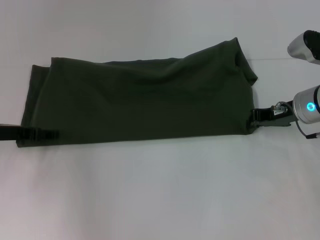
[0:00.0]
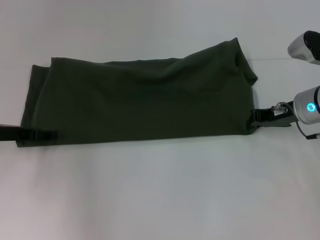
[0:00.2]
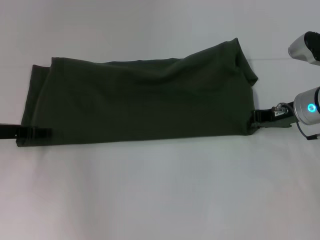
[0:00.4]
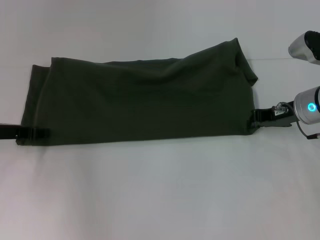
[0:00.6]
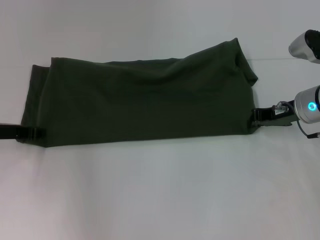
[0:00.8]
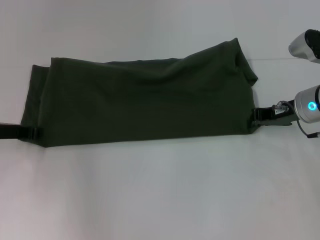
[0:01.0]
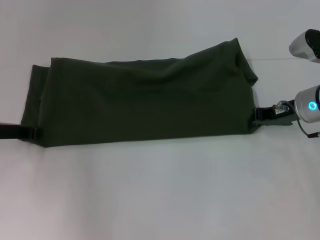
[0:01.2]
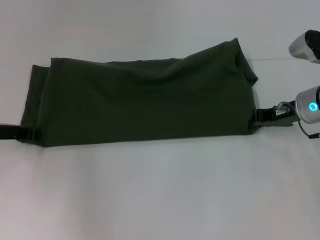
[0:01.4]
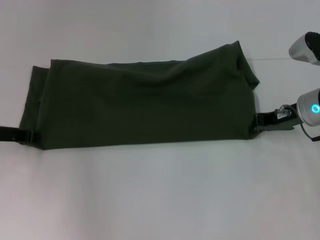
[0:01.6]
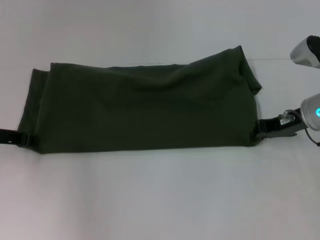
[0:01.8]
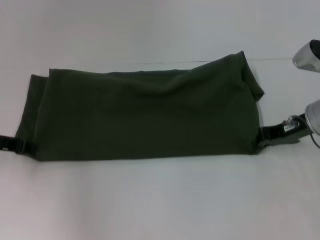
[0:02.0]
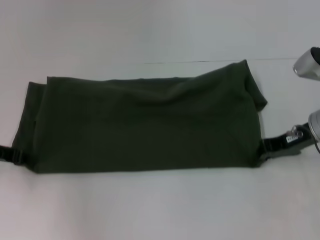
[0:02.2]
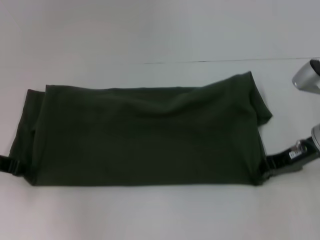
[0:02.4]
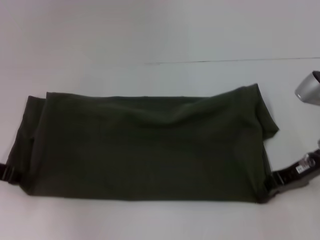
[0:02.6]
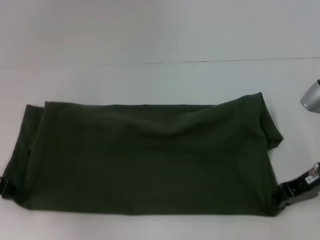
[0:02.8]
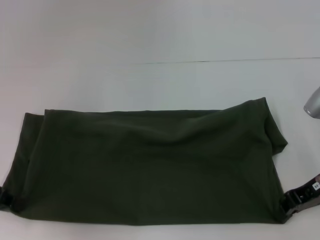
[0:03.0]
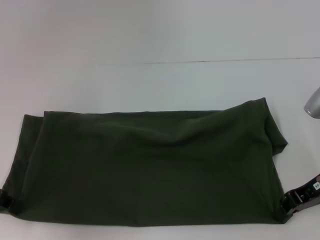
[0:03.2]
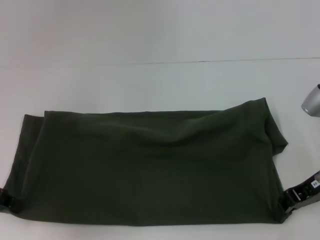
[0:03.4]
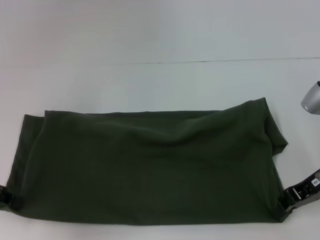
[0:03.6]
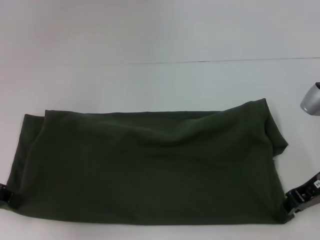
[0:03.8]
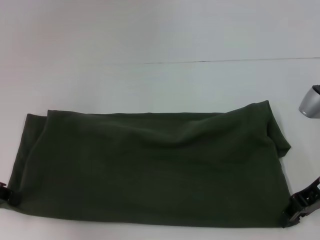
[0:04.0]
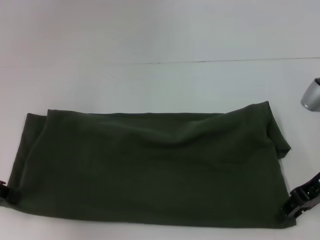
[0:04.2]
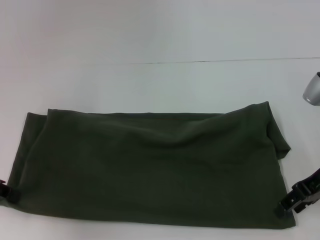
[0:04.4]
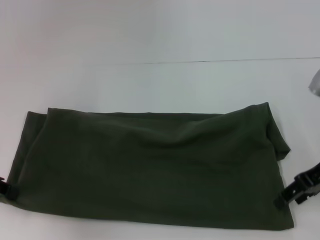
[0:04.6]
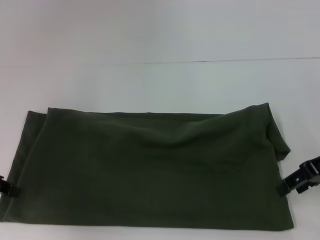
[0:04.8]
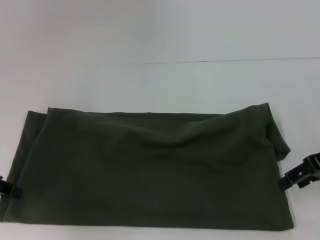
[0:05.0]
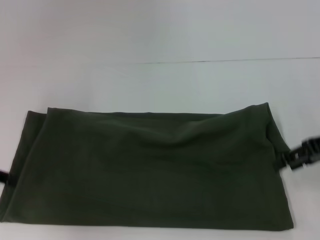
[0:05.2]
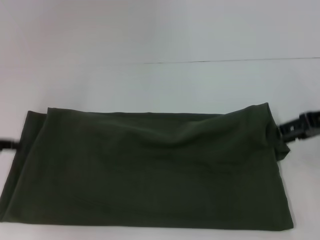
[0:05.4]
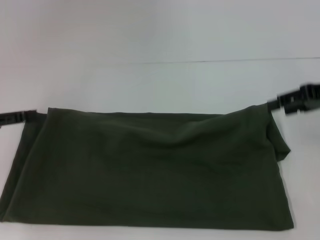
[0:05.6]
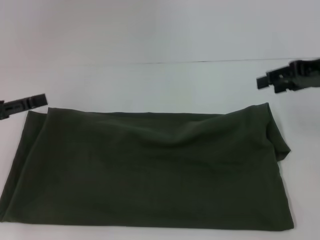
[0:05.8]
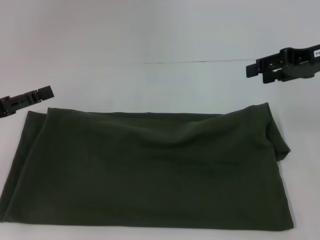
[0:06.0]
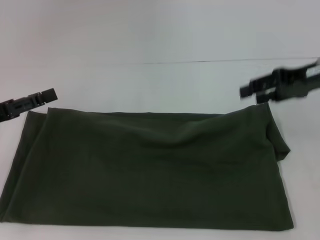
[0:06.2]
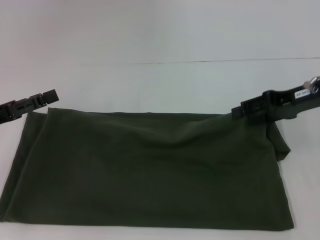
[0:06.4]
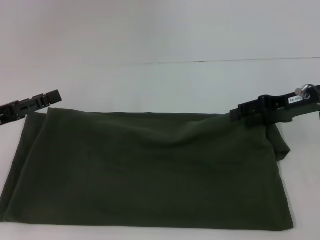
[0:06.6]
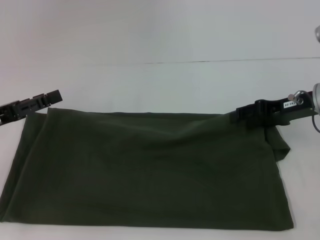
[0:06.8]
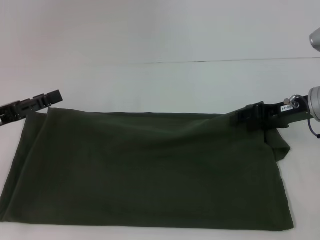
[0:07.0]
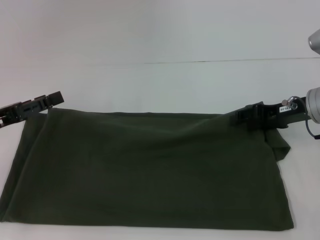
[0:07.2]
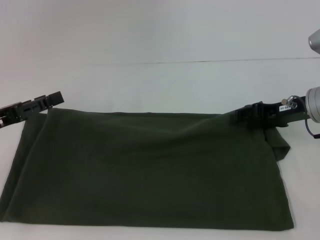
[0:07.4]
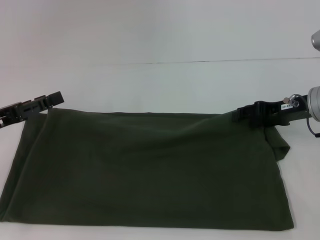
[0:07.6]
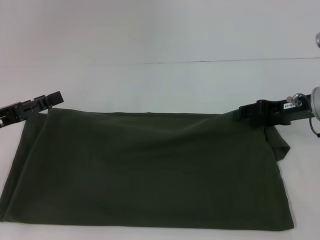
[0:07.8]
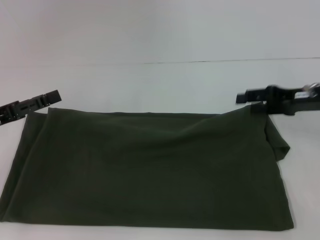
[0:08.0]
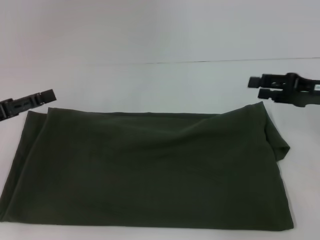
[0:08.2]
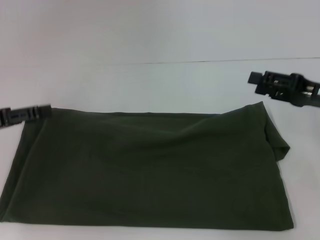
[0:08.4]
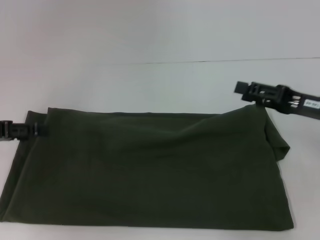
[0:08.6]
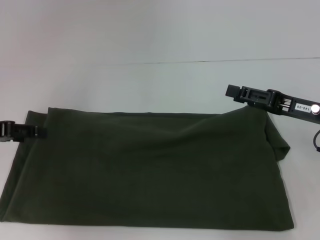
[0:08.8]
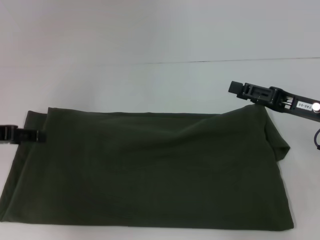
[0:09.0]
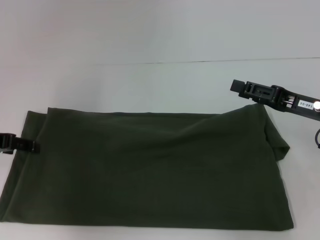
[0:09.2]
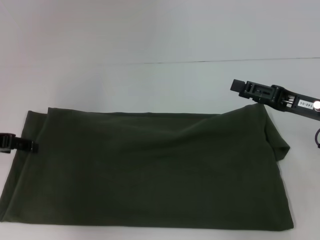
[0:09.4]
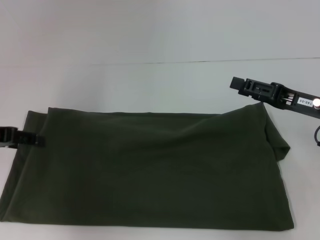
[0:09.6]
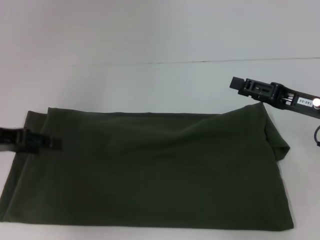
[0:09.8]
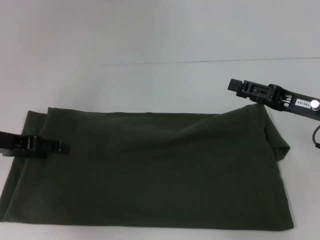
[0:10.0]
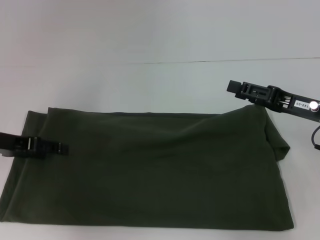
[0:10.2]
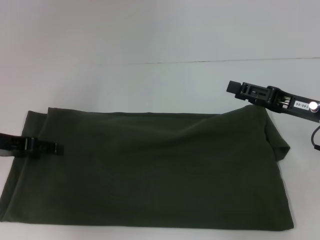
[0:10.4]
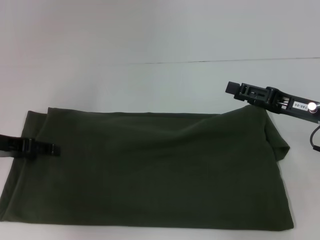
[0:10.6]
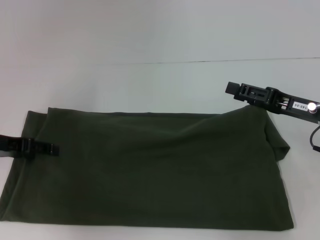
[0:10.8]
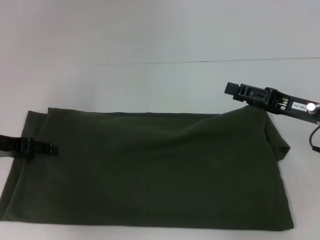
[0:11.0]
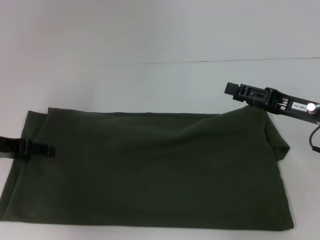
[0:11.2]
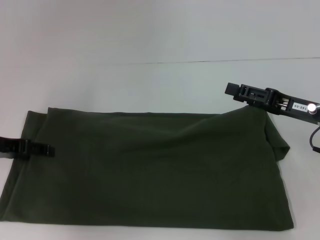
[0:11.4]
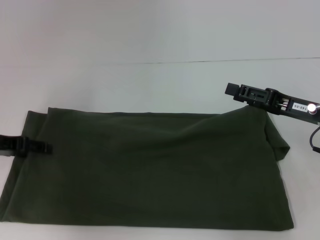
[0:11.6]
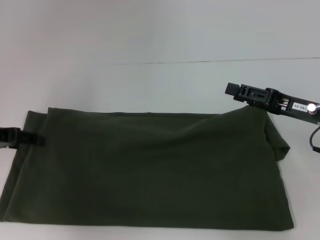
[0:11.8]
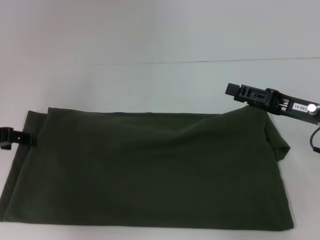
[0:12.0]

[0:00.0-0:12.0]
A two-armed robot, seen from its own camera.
Step, 0:00.0 to 0:04.6: Pull the clothes with your left hand.
Step, 0:00.0 to 0:04.6: Pull the clothes with your right hand.
0:00.0 to 0:01.6: The left gripper closes its fingers.
0:01.6 to 0:03.0: The grippers both shift backward by about 5 cm.
0:03.0 to 0:04.4: The right gripper opens.
0:04.4 to 0:06.0: The right gripper travels upward and forward by approximately 10 cm. Meanwhile the left gripper opens up.
0:06.0 to 0:07.6: The right gripper travels downward by about 10 cm.
0:07.6 to 0:09.0: The right gripper shifts some 5 cm backward.
0:09.0 to 0:12.0: There are only small adjustments of the grippers.

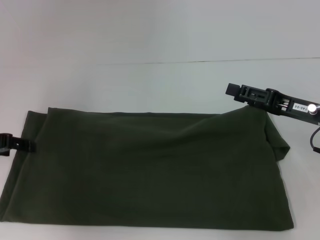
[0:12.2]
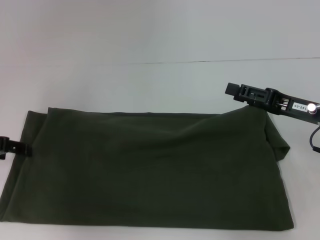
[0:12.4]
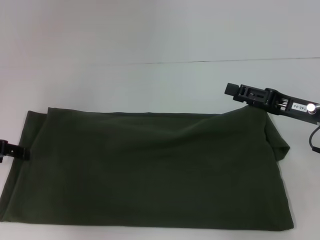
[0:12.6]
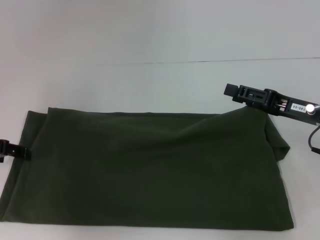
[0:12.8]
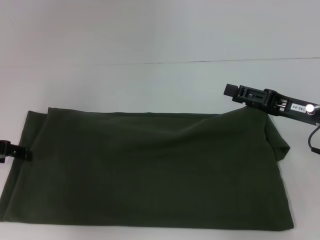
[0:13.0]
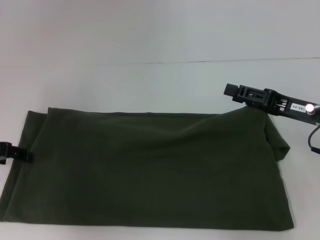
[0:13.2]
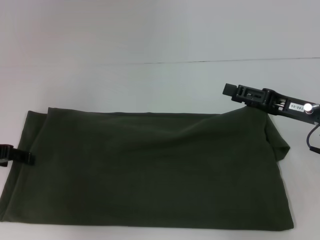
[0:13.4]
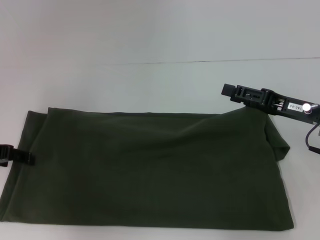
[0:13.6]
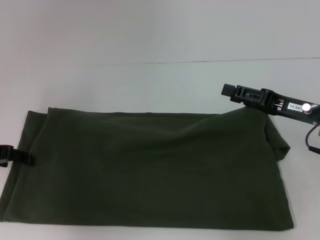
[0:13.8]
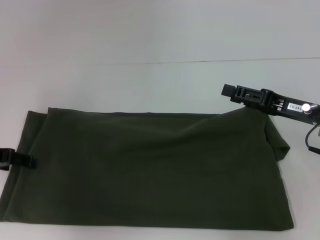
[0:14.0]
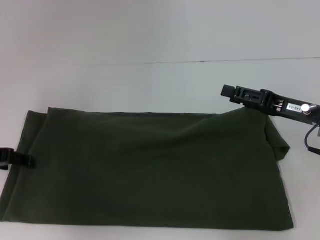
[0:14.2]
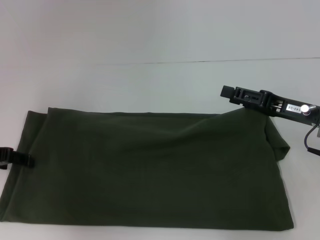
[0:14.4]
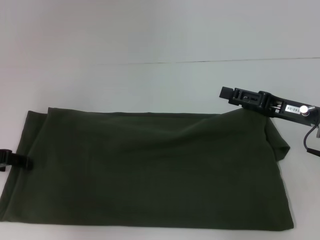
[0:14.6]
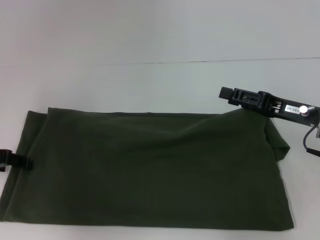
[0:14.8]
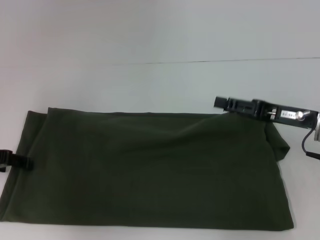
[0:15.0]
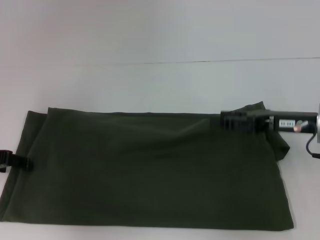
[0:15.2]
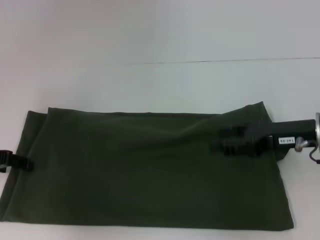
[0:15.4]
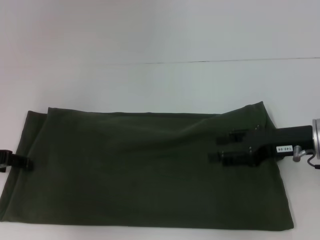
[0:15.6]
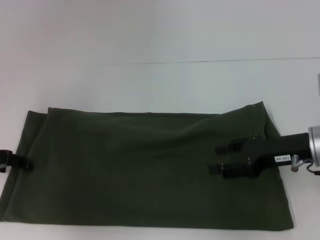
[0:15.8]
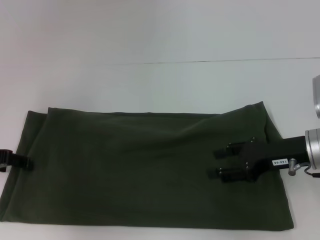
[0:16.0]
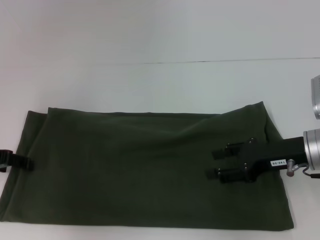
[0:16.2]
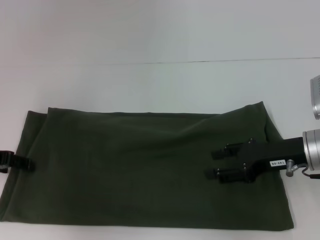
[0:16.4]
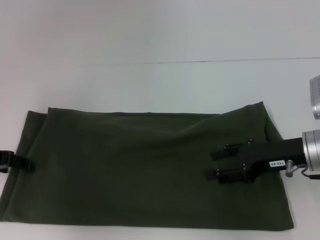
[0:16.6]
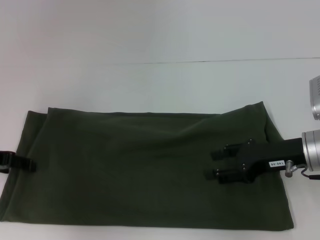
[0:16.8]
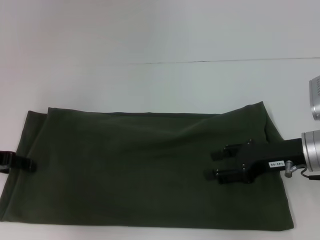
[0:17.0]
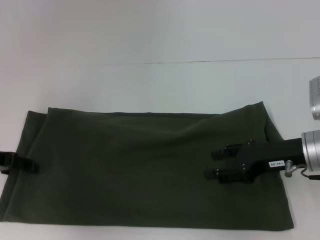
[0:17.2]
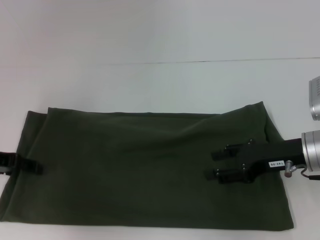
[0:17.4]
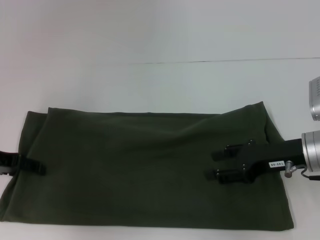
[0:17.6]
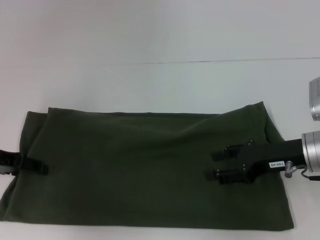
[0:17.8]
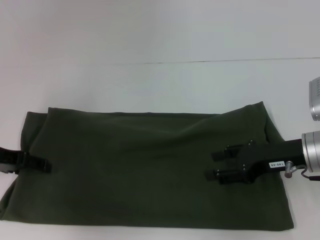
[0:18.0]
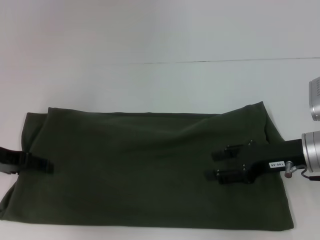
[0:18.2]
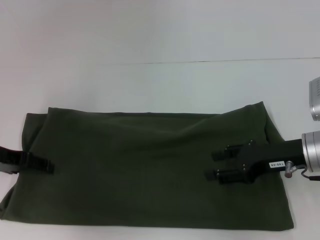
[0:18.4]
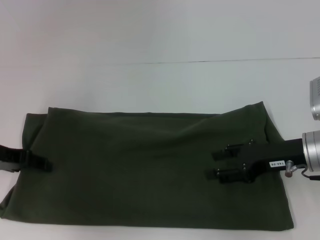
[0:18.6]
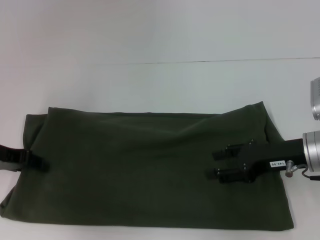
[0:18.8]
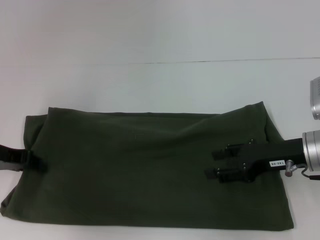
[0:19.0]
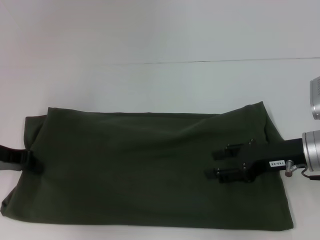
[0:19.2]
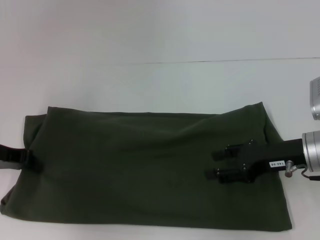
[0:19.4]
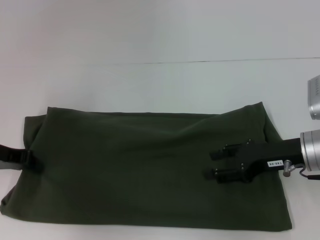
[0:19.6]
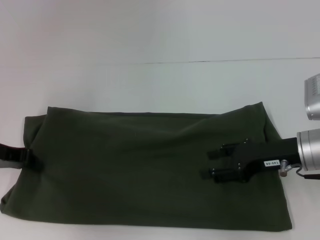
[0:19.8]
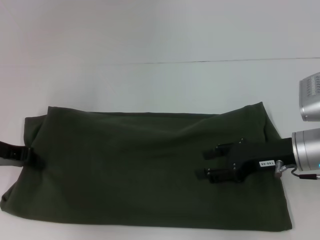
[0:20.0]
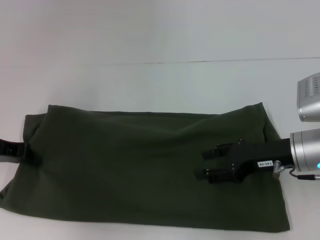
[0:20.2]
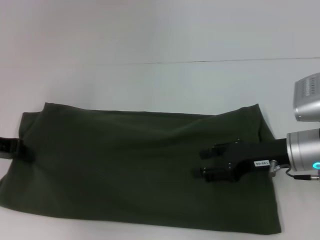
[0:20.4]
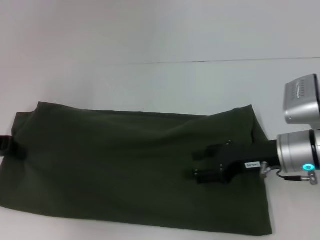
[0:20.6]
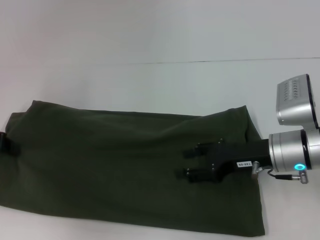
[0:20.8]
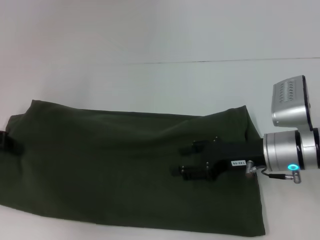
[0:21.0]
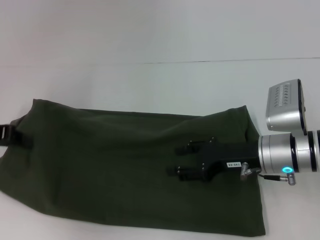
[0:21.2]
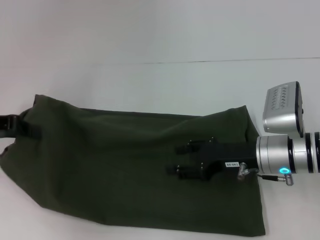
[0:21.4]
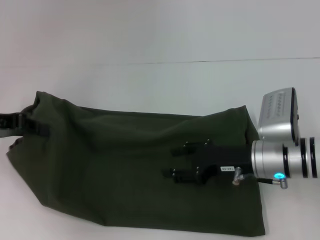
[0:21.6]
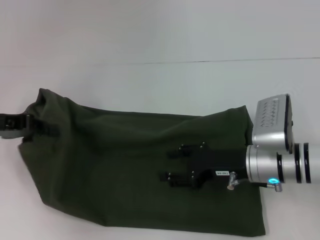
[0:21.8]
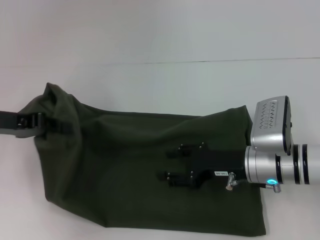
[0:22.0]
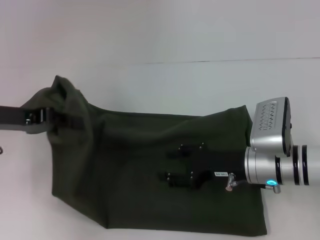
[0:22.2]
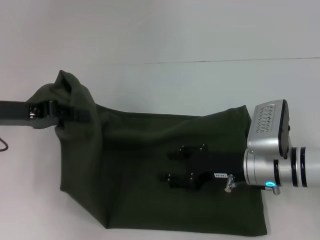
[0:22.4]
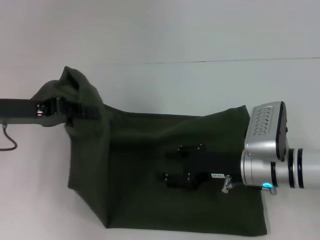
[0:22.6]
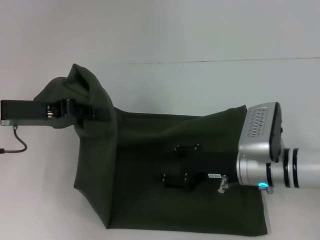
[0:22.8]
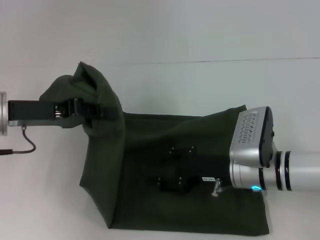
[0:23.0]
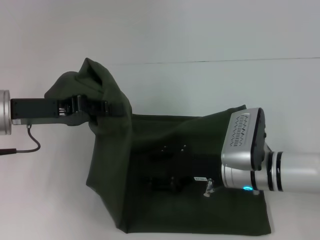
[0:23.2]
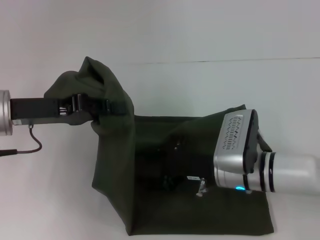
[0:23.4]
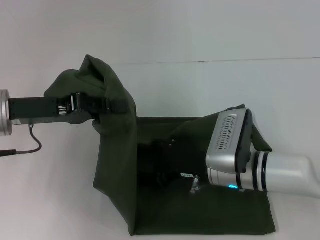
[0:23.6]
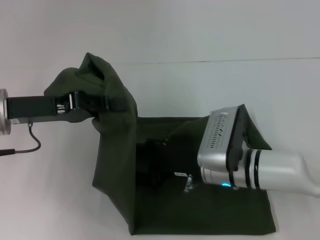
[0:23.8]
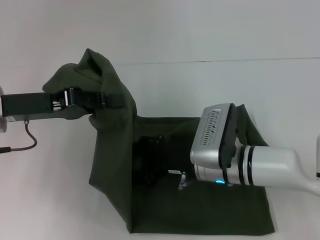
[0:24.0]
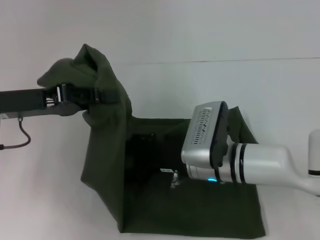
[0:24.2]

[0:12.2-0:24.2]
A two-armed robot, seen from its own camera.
0:12.2 to 0:13.8: Both grippers stay about where they are.
0:16.6 to 0:18.2: The grippers move only a little.
0:18.2 to 0:19.8: The left gripper closes its fingers.
0:19.8 to 0:21.2: The right gripper changes place by roughly 5 cm.
0:21.2 to 0:22.6: The left gripper moves to the right, roughly 5 cm.
0:22.6 to 0:24.2: The right gripper travels to the left by some 10 cm.
